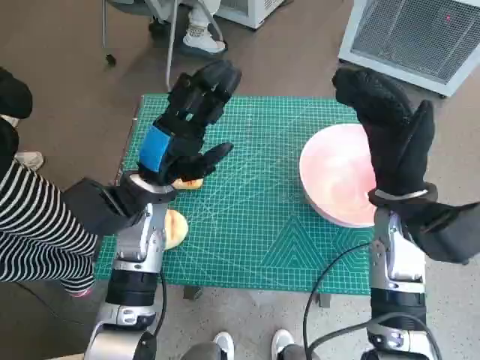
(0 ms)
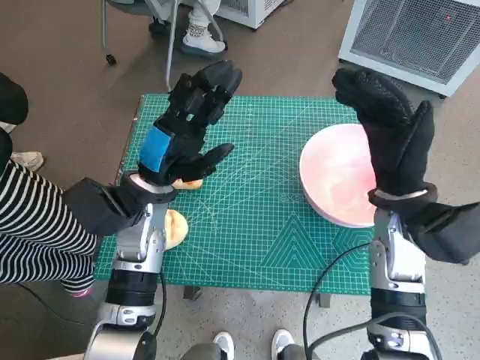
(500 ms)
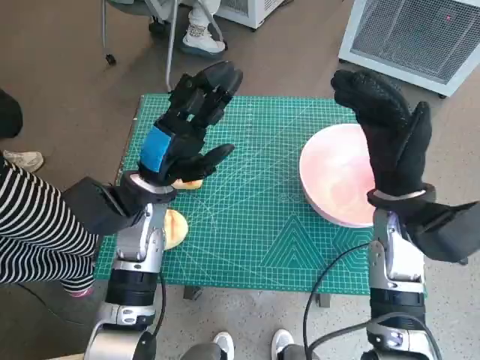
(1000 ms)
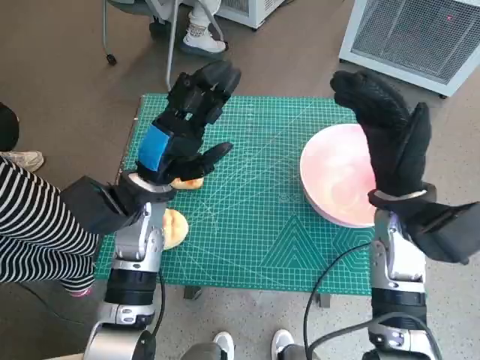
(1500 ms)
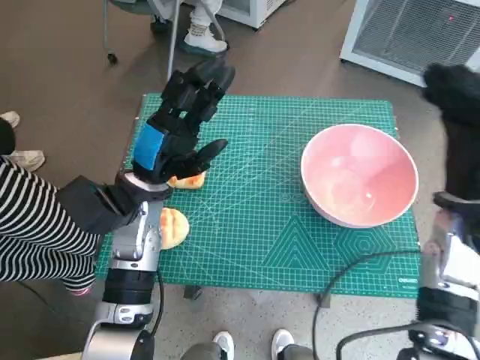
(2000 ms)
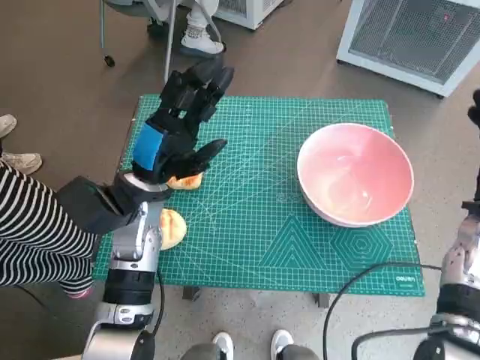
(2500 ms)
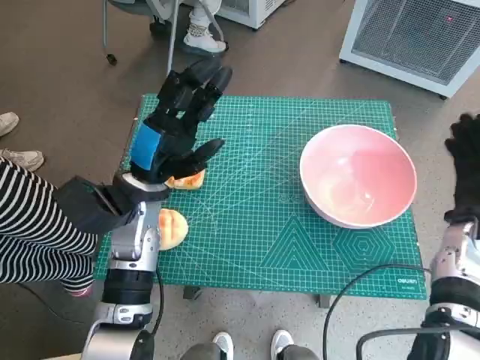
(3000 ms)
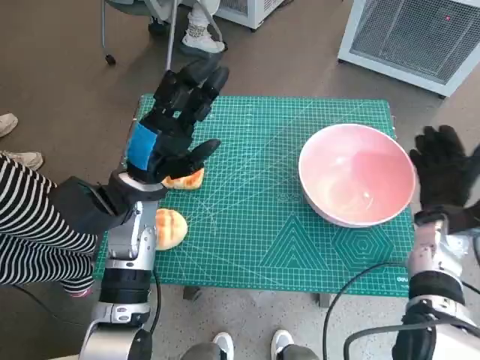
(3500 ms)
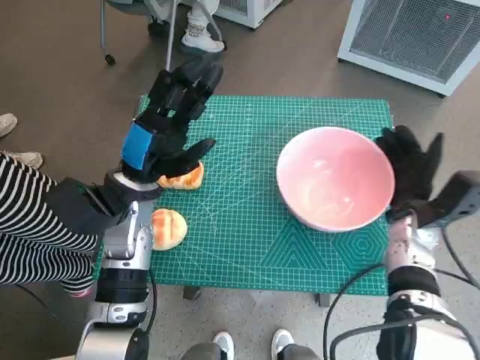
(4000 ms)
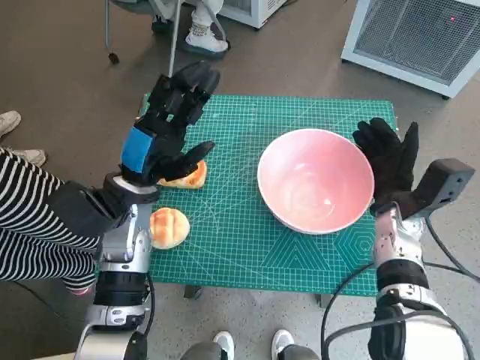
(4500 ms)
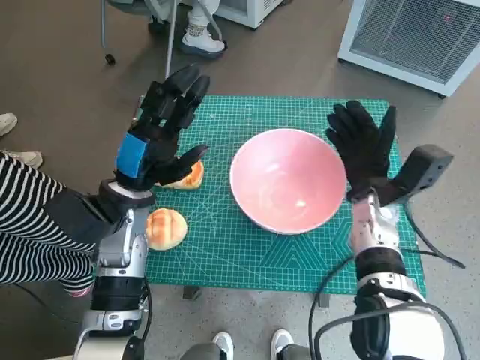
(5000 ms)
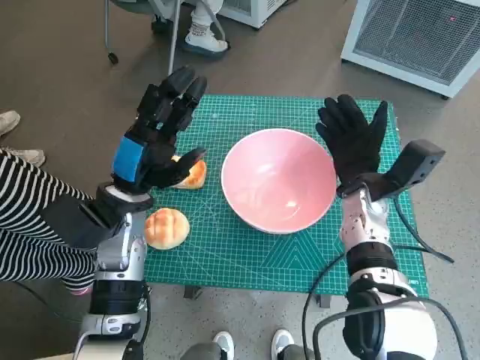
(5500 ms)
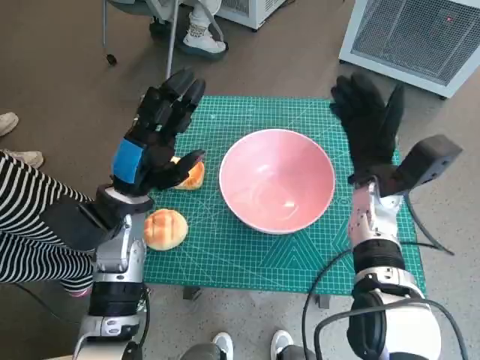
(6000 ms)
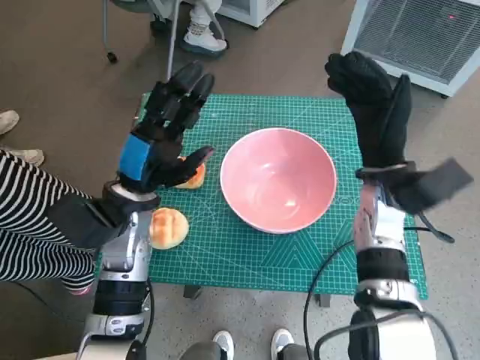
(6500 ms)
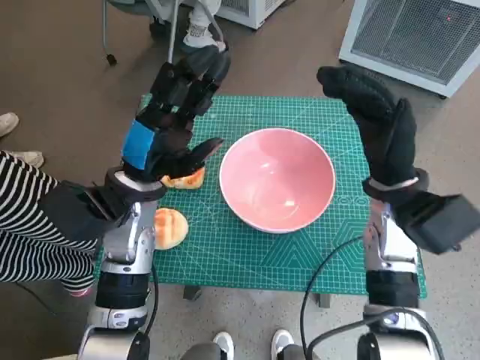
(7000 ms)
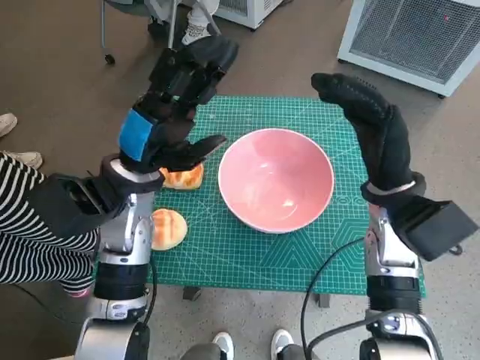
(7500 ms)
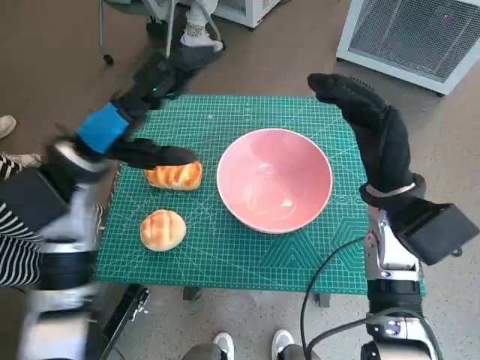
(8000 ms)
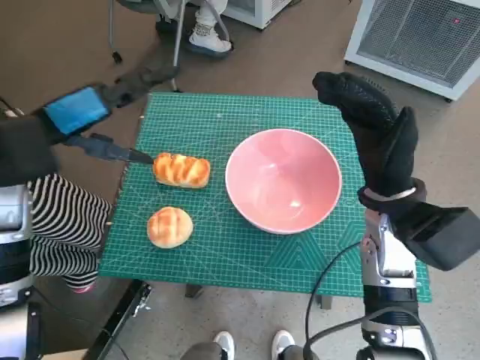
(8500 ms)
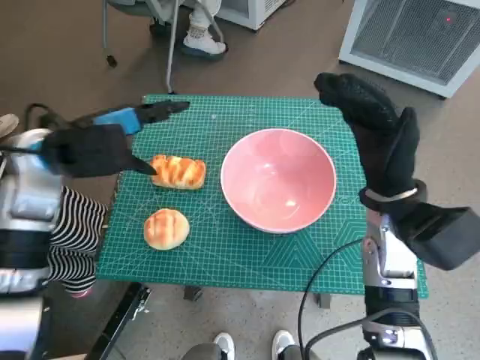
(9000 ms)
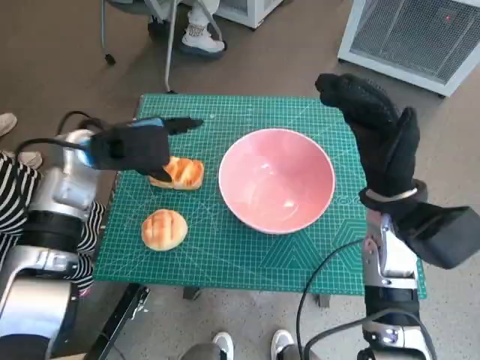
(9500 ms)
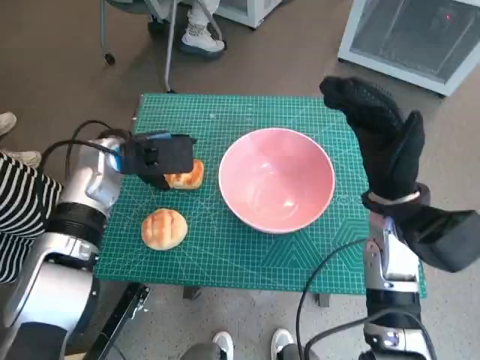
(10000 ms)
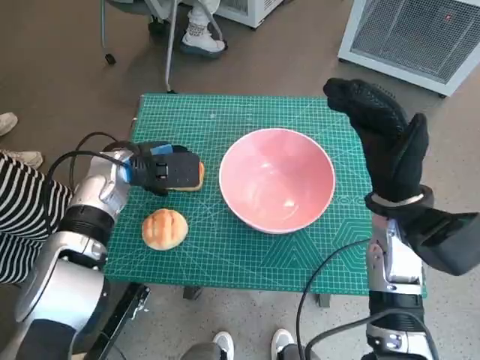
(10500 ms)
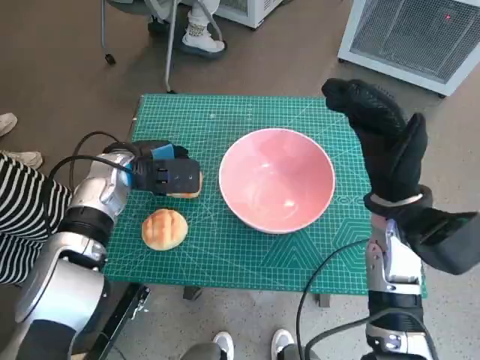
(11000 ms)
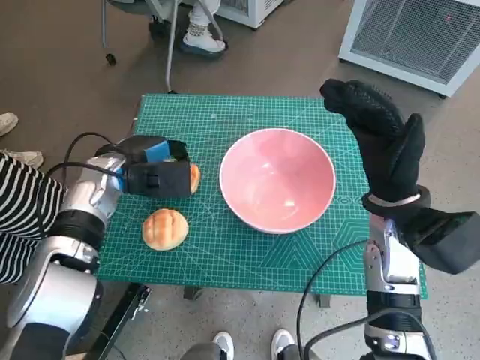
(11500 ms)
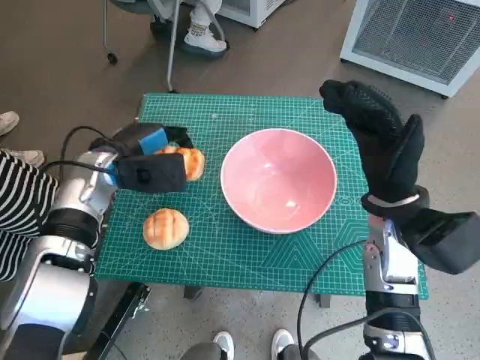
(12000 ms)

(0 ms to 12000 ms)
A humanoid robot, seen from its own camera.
Task of the whole recording: Push the bowl into the center of the table and put the bread into the bowl.
Step, 0 ms - 5500 ms: Move the pink bowl to the center of table with right hand.
Step, 6000 ms - 11000 ms: Grasp the long bread with left hand.
2000 ms - 4000 ms: The right hand goes some 10 cm downward.
4000 ms - 6000 ms: The right hand moves to the left, some 5 cm.
6000 ms - 8000 ms: The left hand goes about 5 cm upward. The right hand shifts by some 5 cm.
8000 ms - 10000 ms: The left hand is displaced forward by approximately 5 cm.
10000 ms - 12000 ms: The hands move only a little.

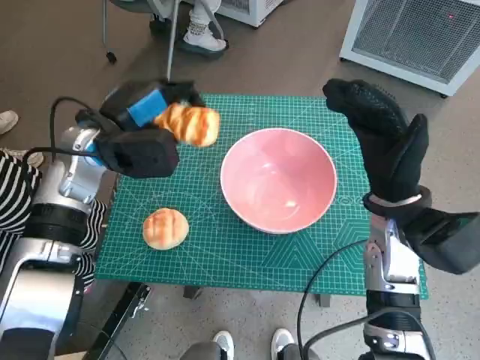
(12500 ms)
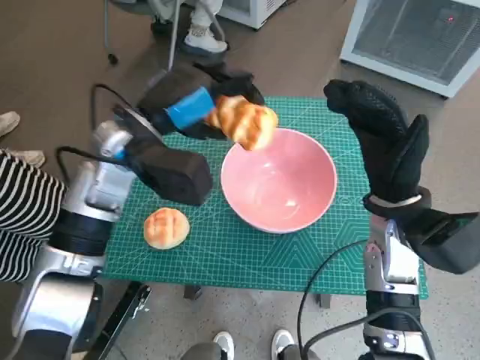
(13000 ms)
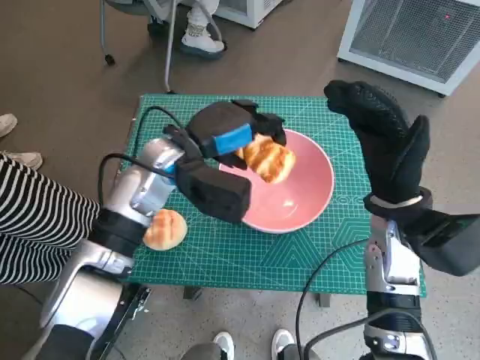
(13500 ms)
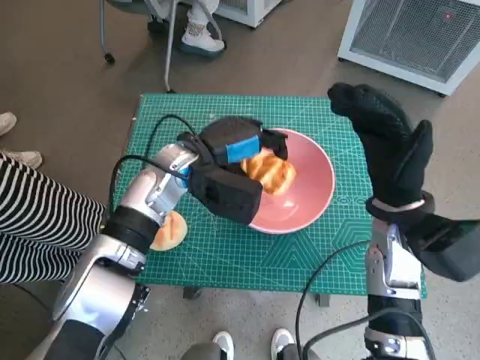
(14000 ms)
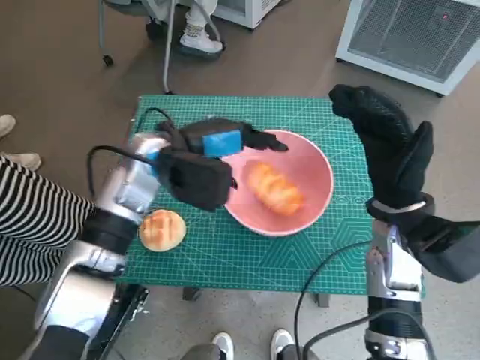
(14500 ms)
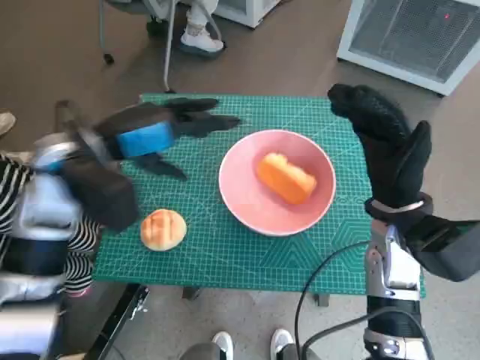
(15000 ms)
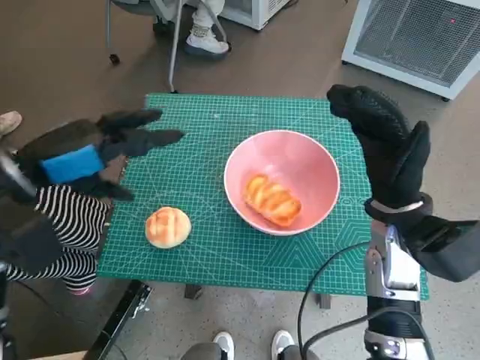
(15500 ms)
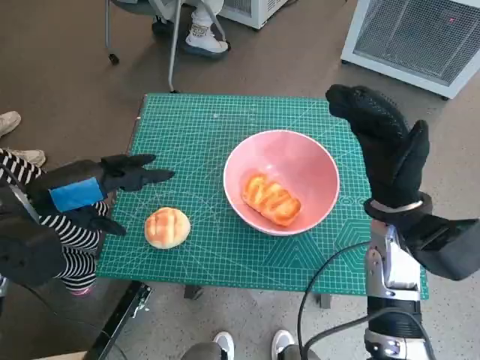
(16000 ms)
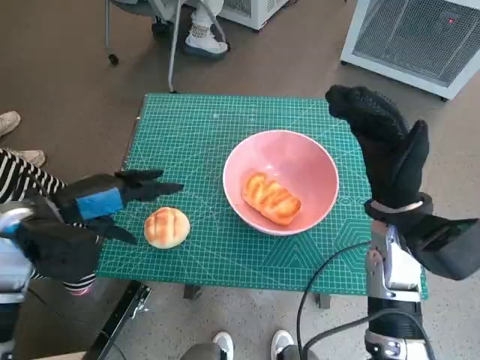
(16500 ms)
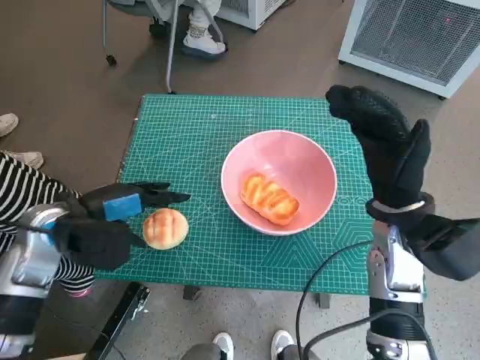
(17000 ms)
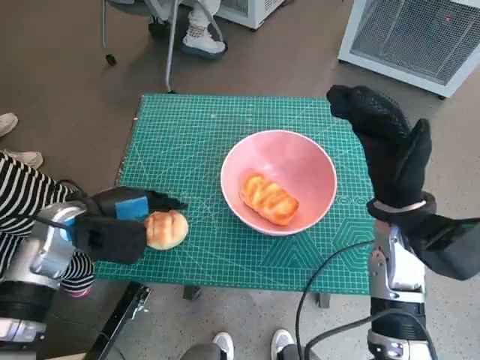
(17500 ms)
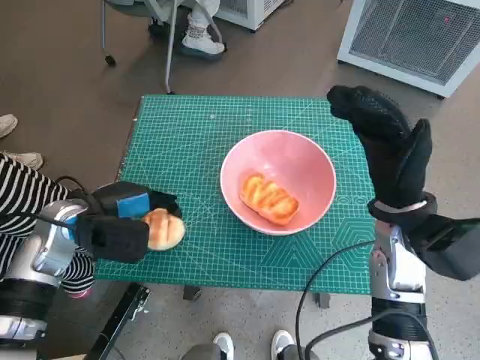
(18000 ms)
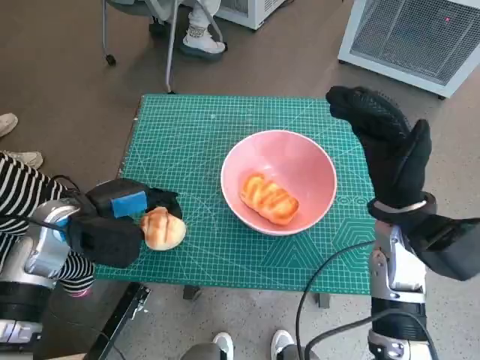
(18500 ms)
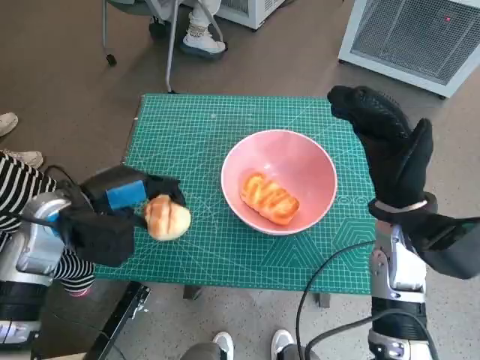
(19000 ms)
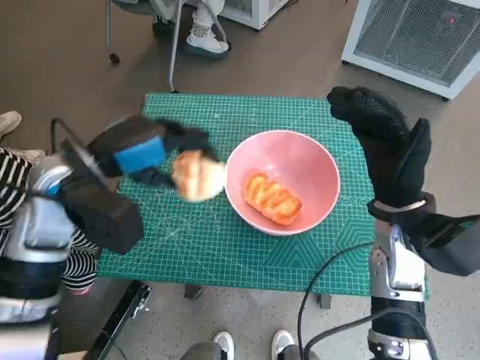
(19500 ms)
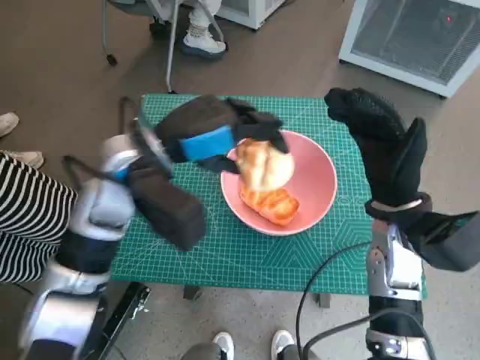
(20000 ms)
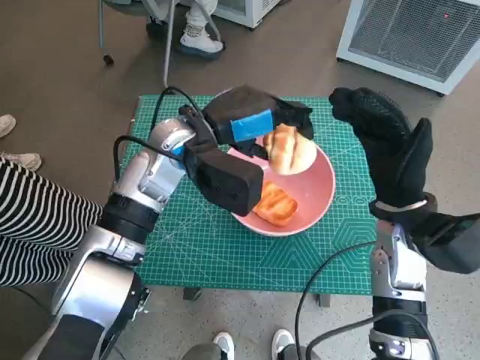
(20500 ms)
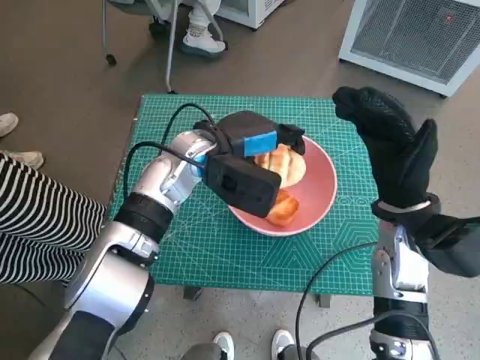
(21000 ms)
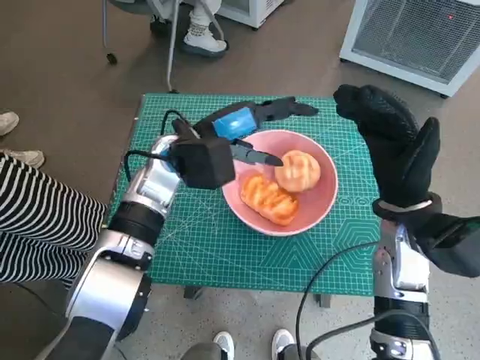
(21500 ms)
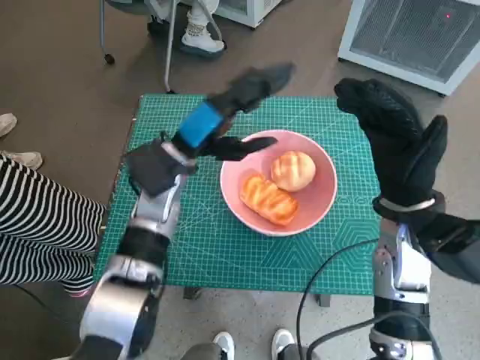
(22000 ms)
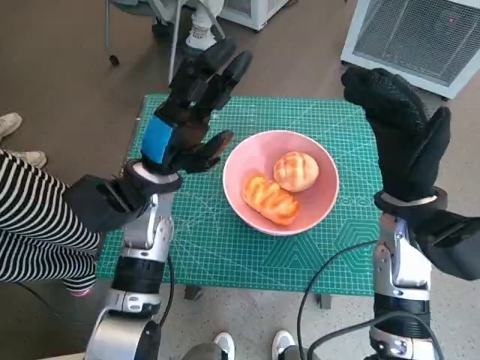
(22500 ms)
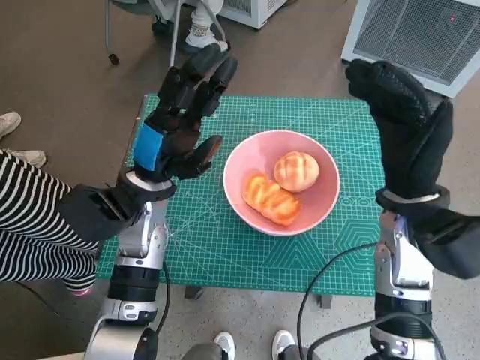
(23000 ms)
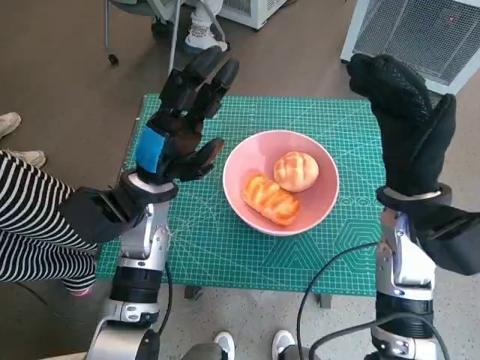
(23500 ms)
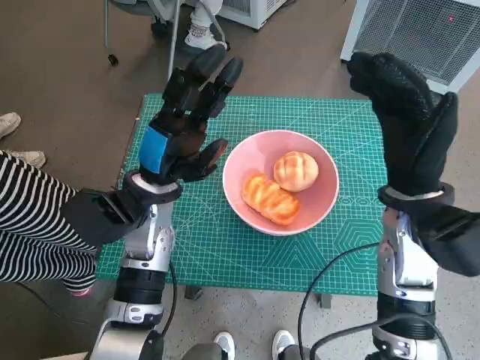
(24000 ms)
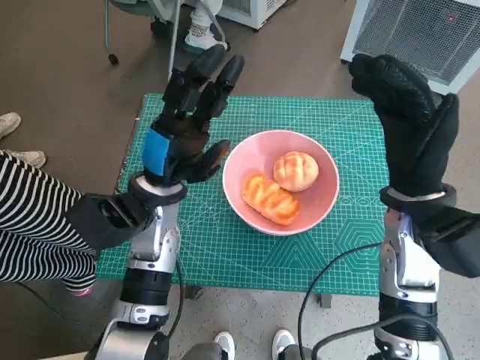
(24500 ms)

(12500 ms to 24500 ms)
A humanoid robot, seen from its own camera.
Task of the whole recording: Push the bowl into the center of the table and put the bread into the bowl.
Step, 12500 ms - 14500 ms: Place the long bread in pink bowl with left hand.
Step, 15000 ms - 18000 ms: Grasp the round bread with left hand.
Step, 18500 ms - 21500 ms: Place the round bread in pink bowl with left hand.
12500 ms - 14500 ms: The left hand heads to the right, covering about 10 cm.
14500 ms - 16500 ms: The left hand goes some 15 cm to the left and backward.
16500 ms - 18500 ms: The left hand ends up about 5 cm from where it was.
18500 ms - 20500 ms: The left hand goes some 20 cm to the right, upward and forward.
20500 ms - 22500 ms: The left hand is displaced downward by about 5 cm.
22500 ms - 24500 ms: The hands stay close to where they were, moving slightly.

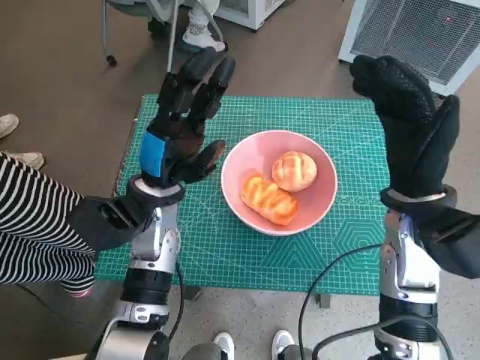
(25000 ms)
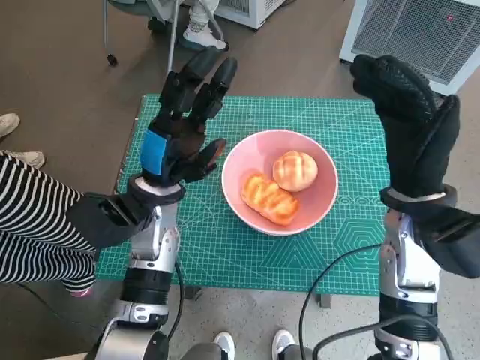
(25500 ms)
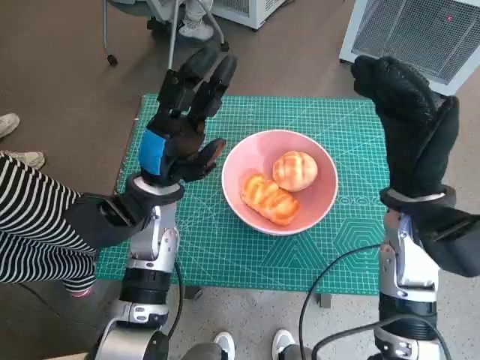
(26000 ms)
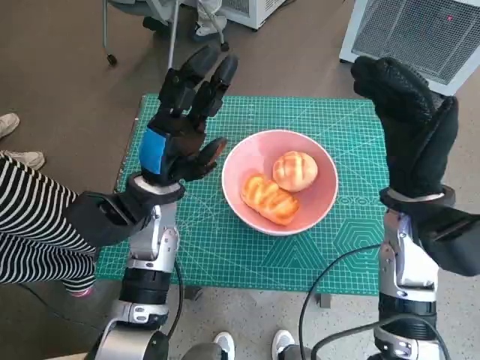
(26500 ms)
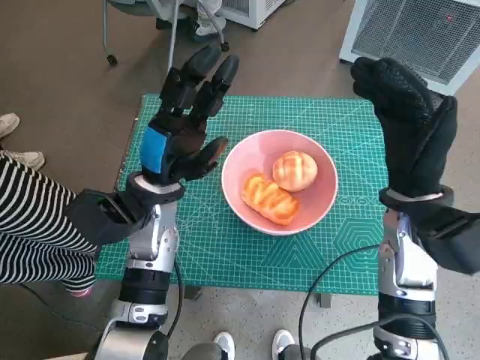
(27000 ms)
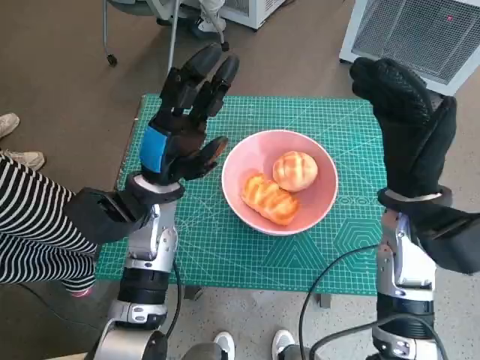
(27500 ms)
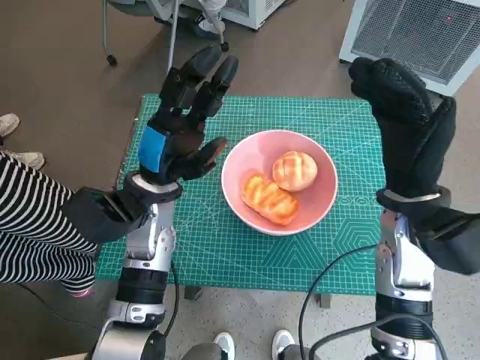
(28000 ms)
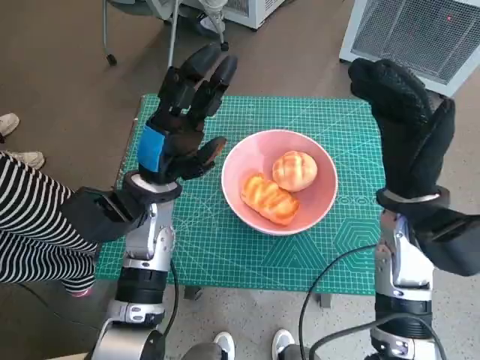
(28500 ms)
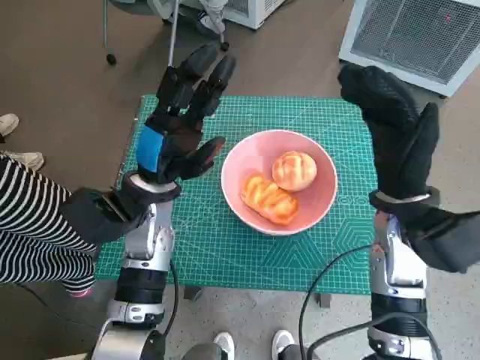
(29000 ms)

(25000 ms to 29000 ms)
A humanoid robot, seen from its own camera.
Task of the whole recording: Push the bowl into the center of the table and put the bread into the bowl.
25000 ms - 27000 ms: The two hands keep their place.
27000 ms - 29000 ms: Both hands stay put.
